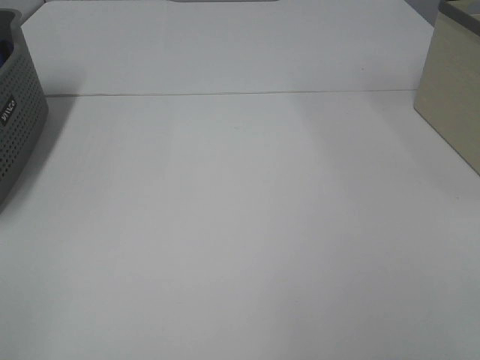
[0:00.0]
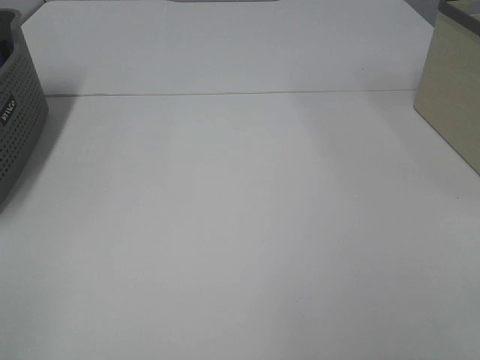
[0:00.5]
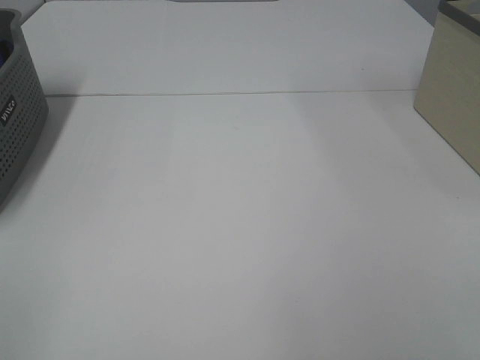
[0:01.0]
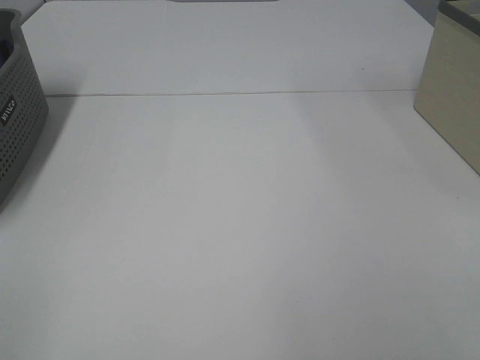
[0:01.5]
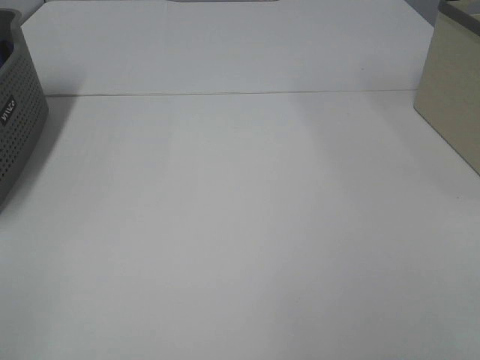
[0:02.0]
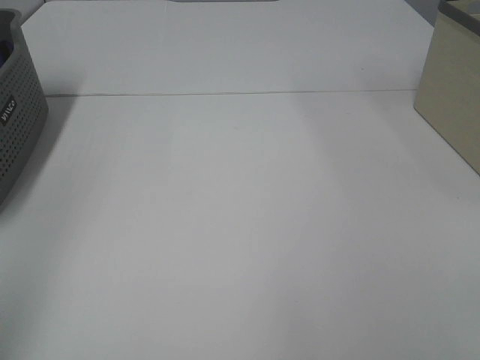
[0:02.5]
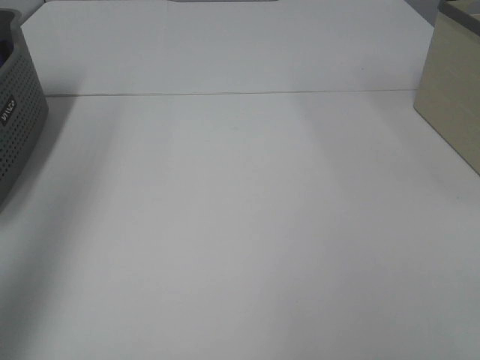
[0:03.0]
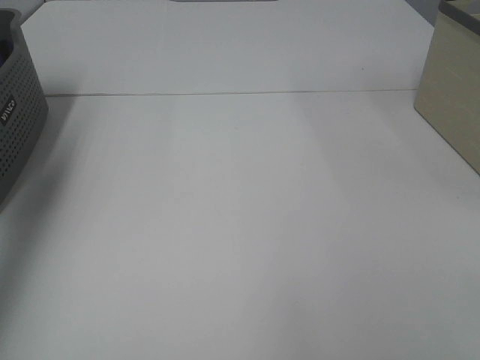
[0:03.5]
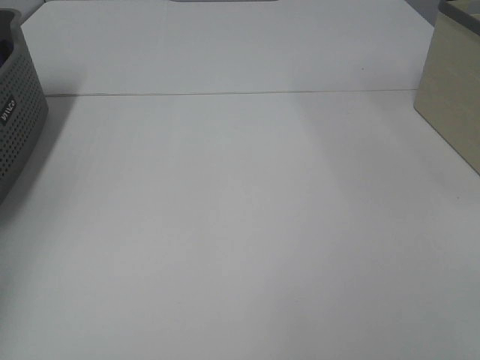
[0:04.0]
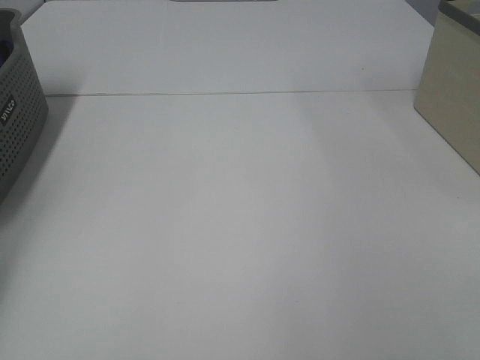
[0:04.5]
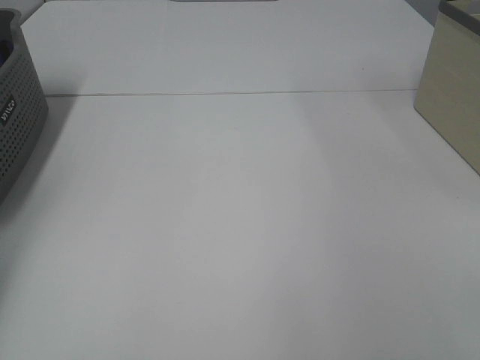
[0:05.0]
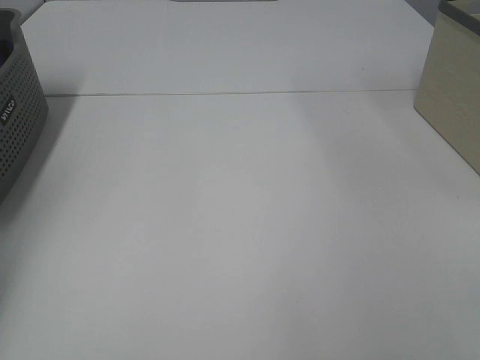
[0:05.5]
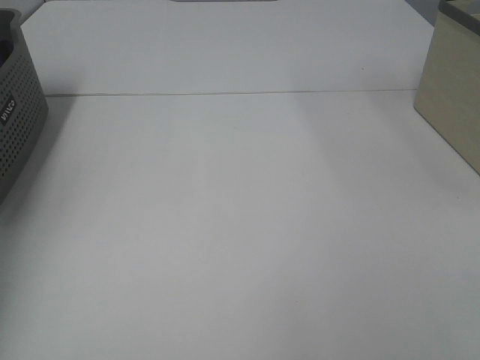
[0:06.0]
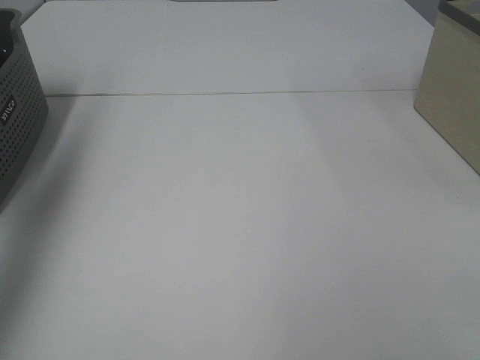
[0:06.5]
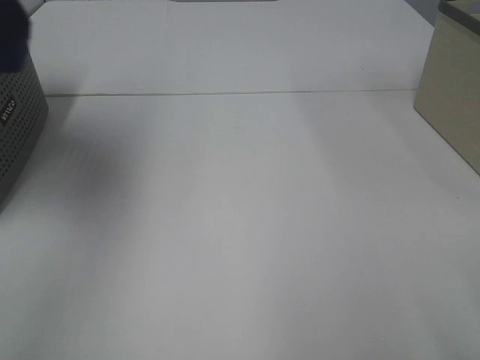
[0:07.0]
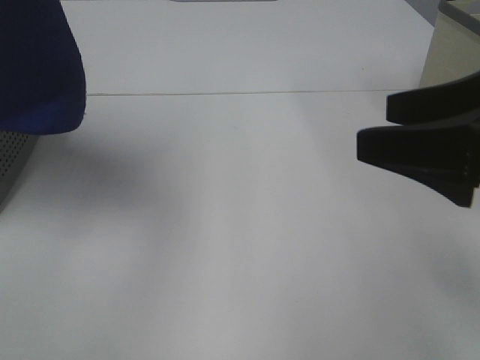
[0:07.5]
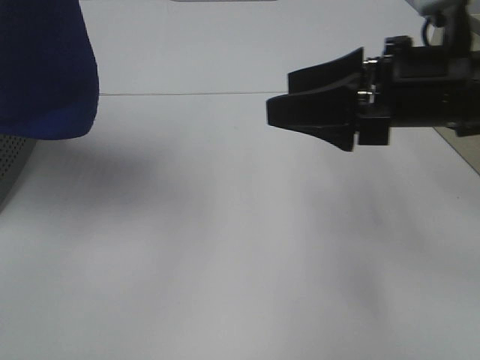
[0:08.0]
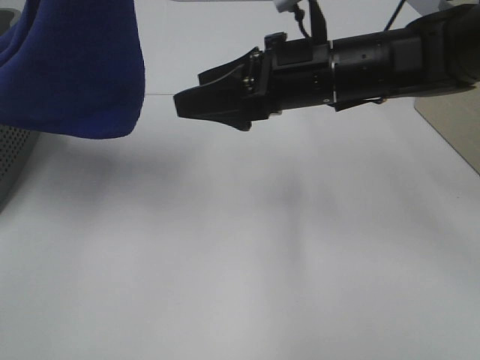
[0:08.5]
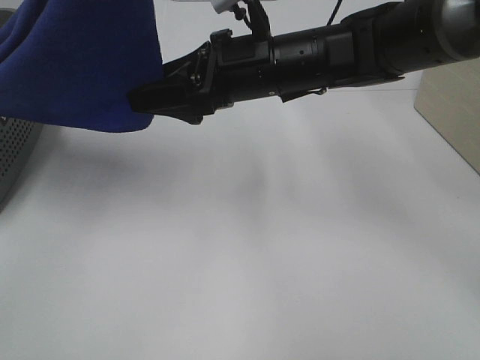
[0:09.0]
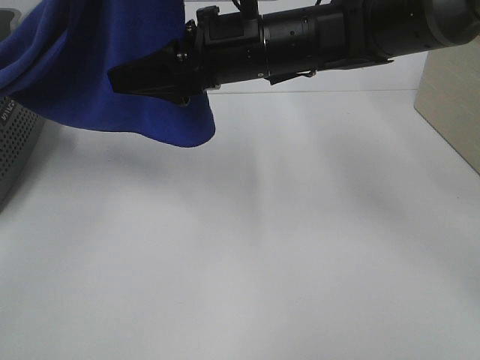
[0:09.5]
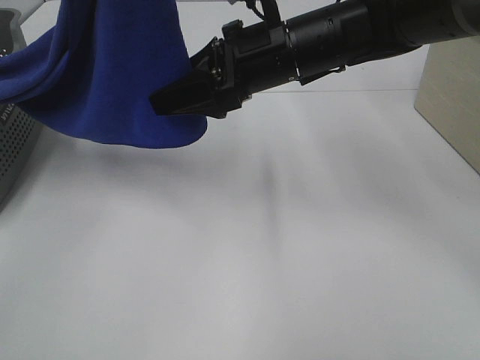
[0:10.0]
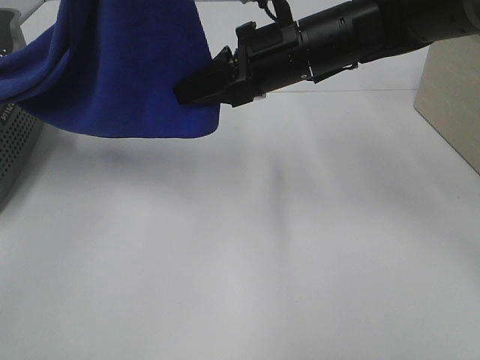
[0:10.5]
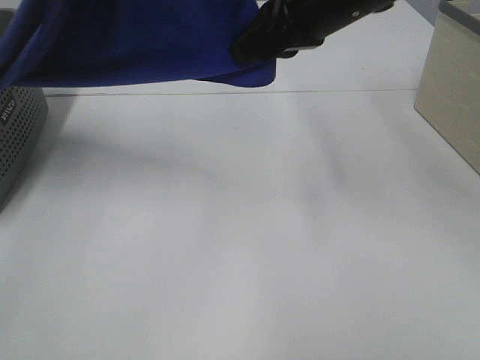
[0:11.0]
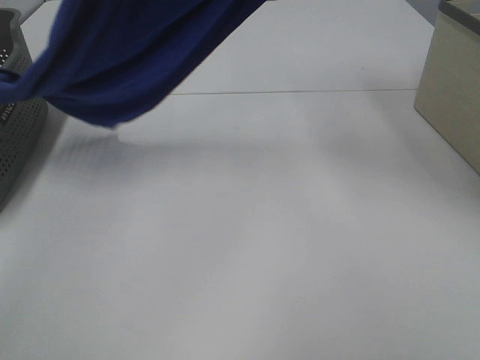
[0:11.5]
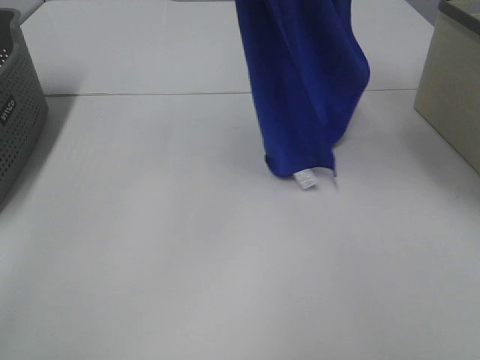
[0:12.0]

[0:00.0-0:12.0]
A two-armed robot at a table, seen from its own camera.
Task of the whole recording: Remove the towel and place it.
Step, 0:07.5 to 0:10.0: Right hand: grab a corner of the blue towel and straighten it.
0:00.0 to 0:02.0: Both grippers stay put.
0:02.0 to 0:04.0: The left gripper travels forward by about 40 cm.
0:06.0 to 0:08.0: The left gripper goes approximately 35 cm to the right, upward and backward. Meanwhile the right gripper is displaced forward and to the left by approximately 30 cm.
0:08.0 to 0:10.0: The right gripper shifts some 15 cm to the left and forward.
0:10.0 to 0:12.0: The left gripper heads forward, covering roughly 5 cm. The right gripper shifts approximately 25 cm upward and to the right, and closes its fingers.

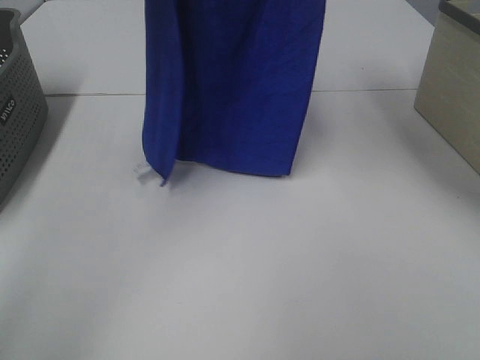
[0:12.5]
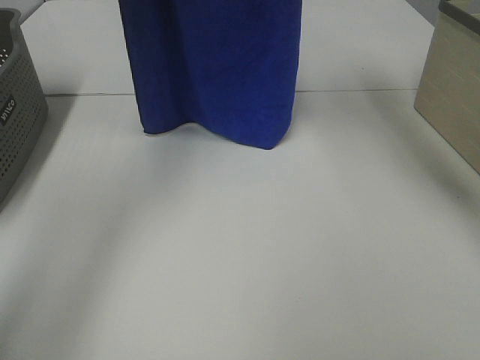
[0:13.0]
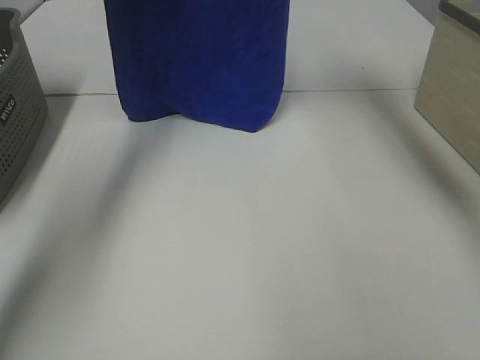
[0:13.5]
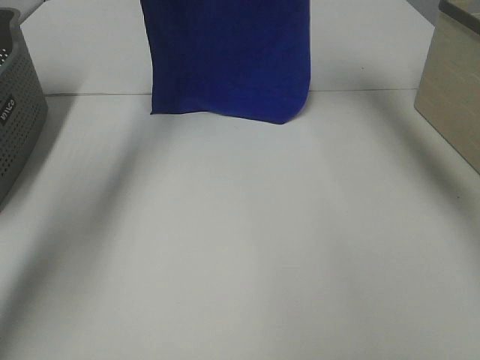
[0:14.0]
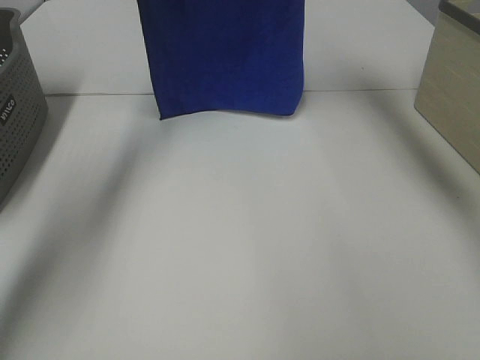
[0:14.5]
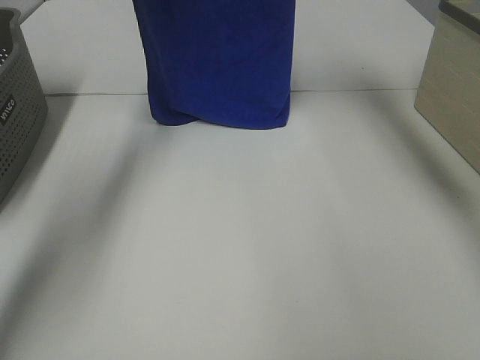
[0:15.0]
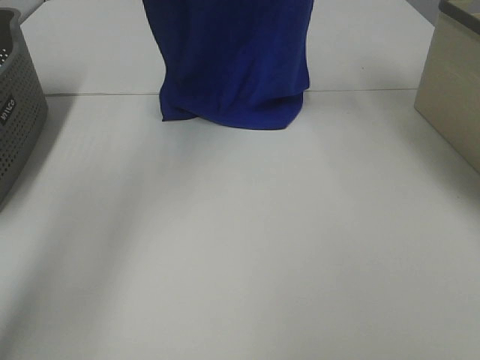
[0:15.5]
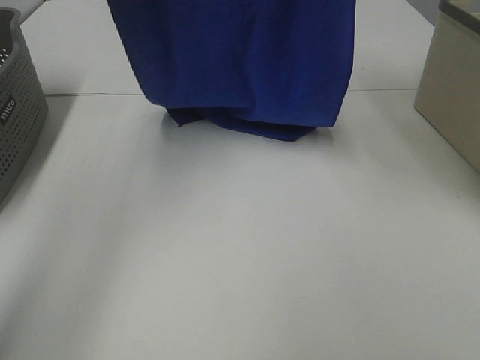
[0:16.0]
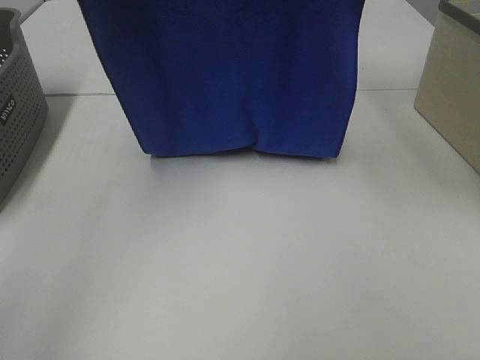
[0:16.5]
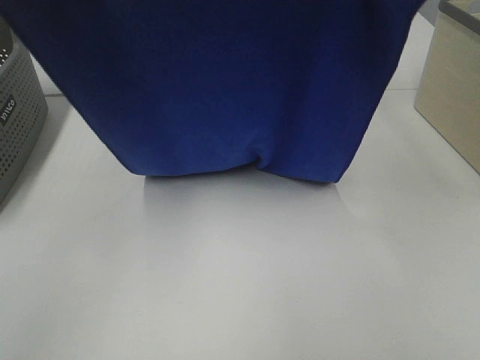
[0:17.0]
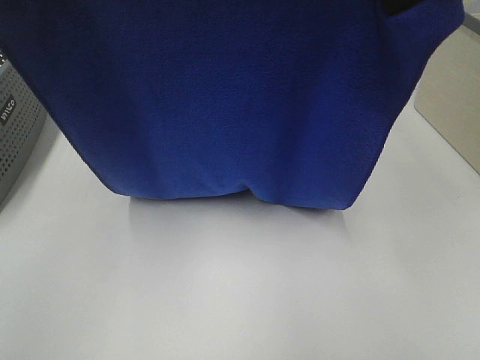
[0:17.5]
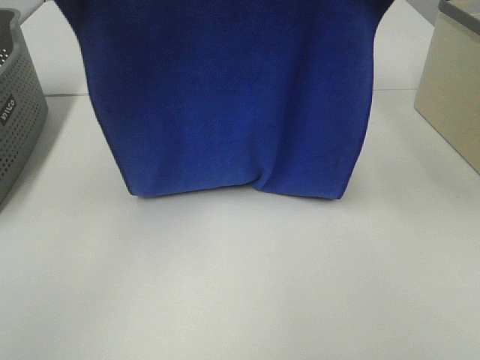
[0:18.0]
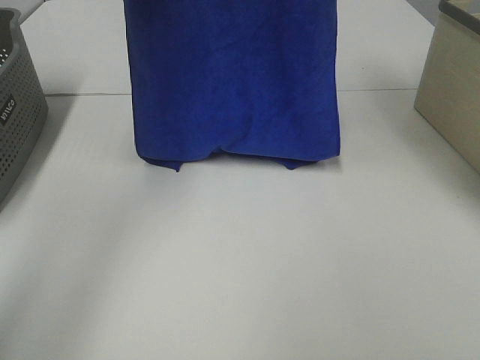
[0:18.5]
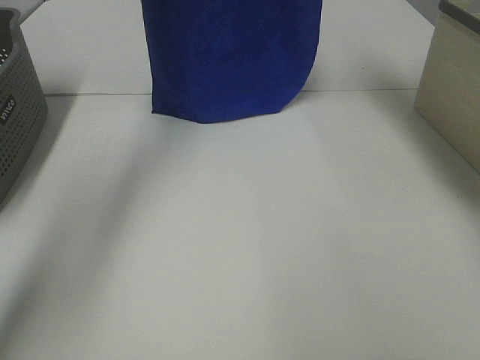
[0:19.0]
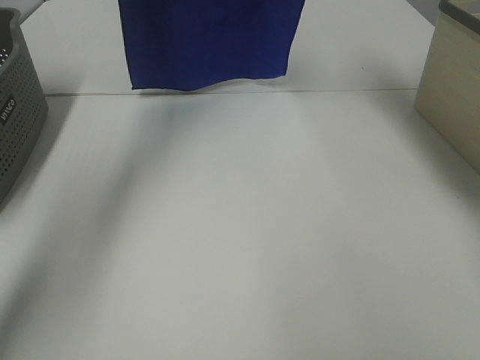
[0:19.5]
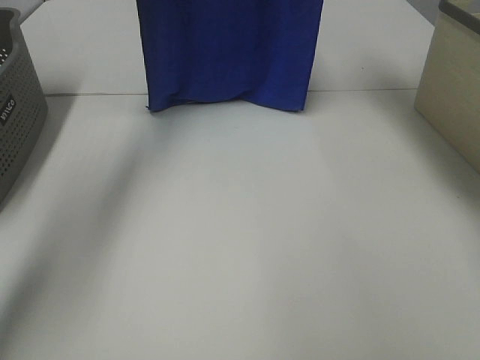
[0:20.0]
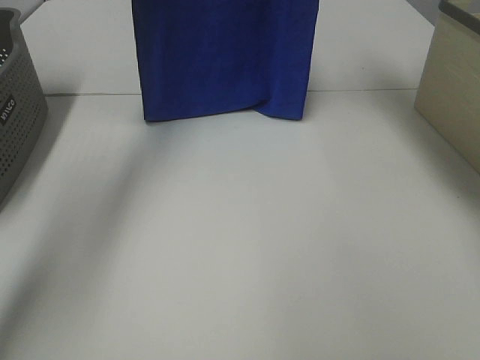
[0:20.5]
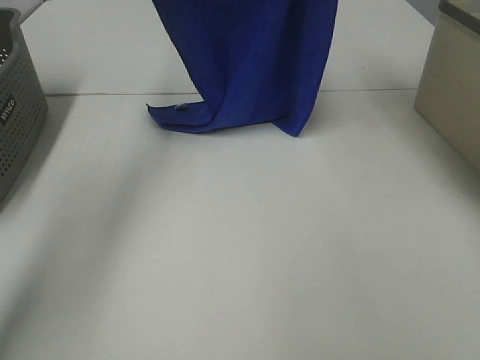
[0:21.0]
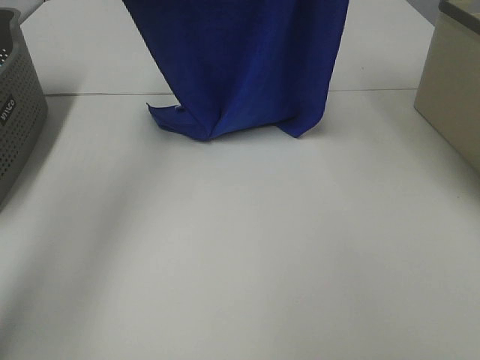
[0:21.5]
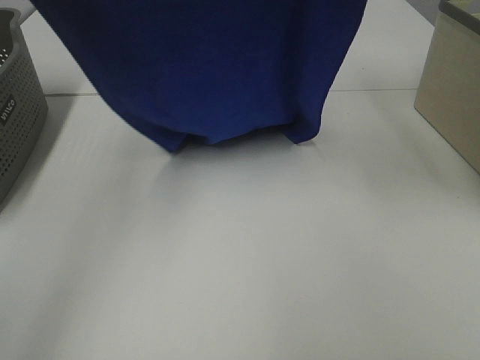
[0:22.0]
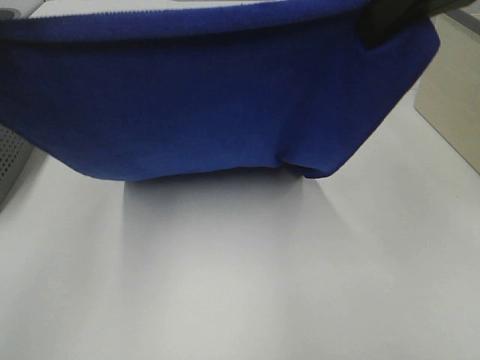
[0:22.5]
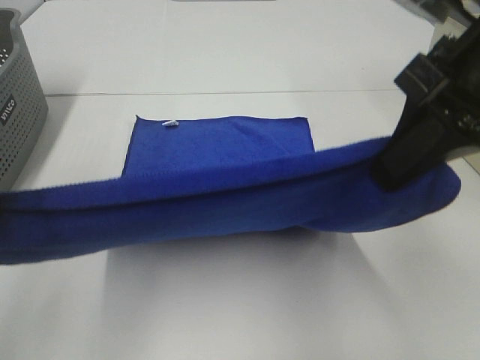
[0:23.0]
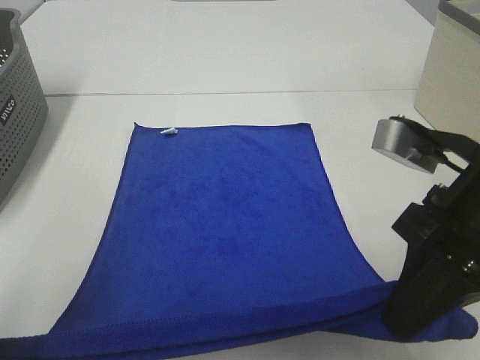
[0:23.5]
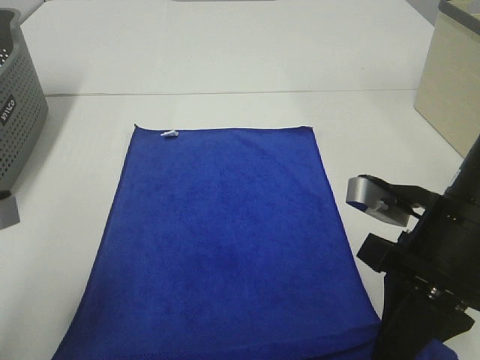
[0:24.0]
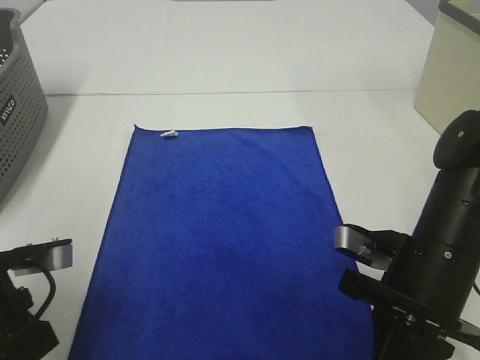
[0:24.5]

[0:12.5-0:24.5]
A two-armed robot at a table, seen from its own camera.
Task of the whole recording: Remove the towel and place it.
Step, 0:12.5 to 0:20.5: Left hand: spread the blue towel flat on the table.
Step, 0:12.5 to 0:20.5: Right hand: spread the blue towel flat on the table.
0:12.5 to 0:14.5: The left gripper is displaced forward, downward and to the left by some 15 cm. Meanwhile the right gripper is displaced forward by approximately 10 cm.
0:14.5 to 0:16.5: Both grippers travel together backward, approximately 20 cm.
0:16.5 to 0:18.5: The grippers both shift forward by roughly 10 cm.
0:18.5 to 0:20.5: The grippers both shift forward by approximately 5 cm.
0:20.5 to 0:22.5: The grippers both shift backward by roughly 25 cm.
0:22.5 to 0:24.5: The grippers both shift downward by about 25 cm.

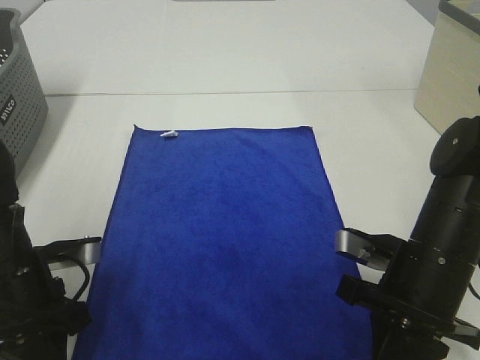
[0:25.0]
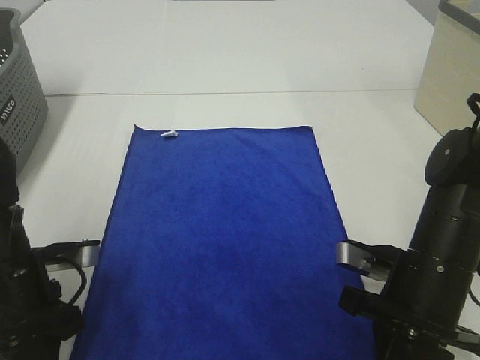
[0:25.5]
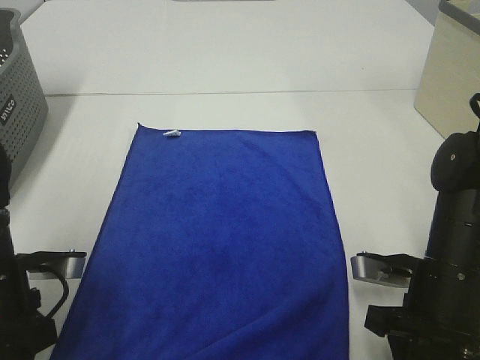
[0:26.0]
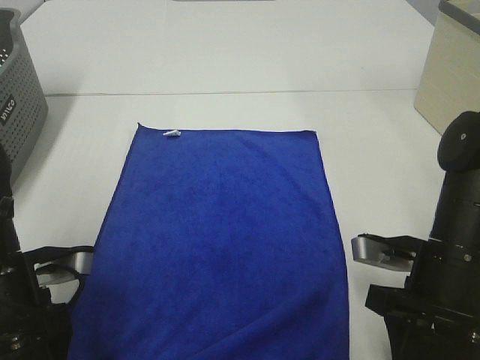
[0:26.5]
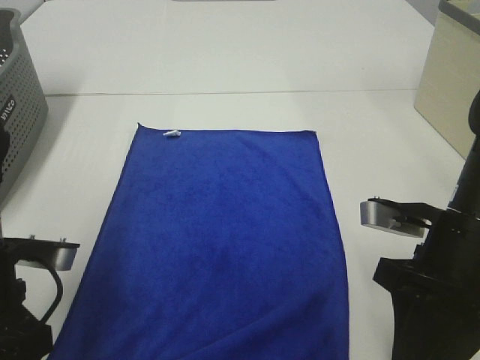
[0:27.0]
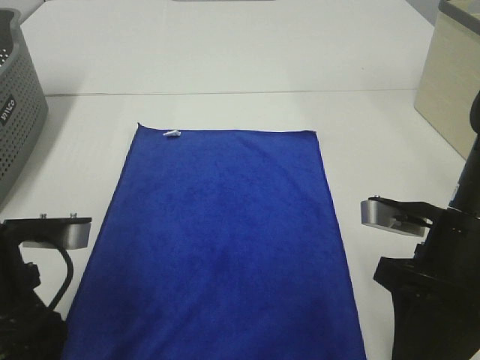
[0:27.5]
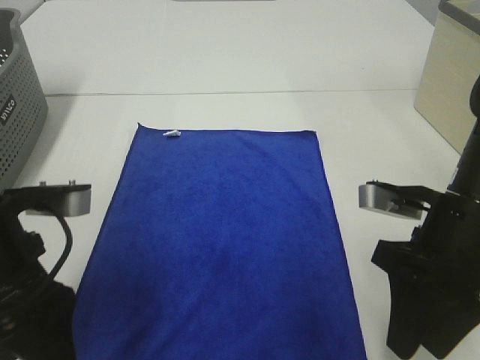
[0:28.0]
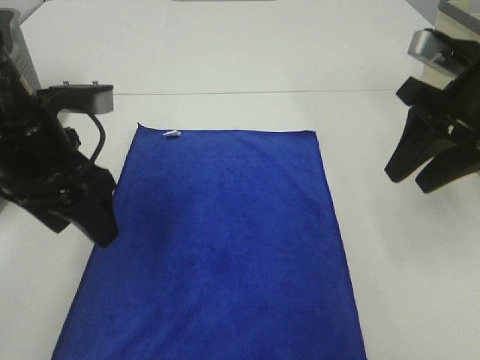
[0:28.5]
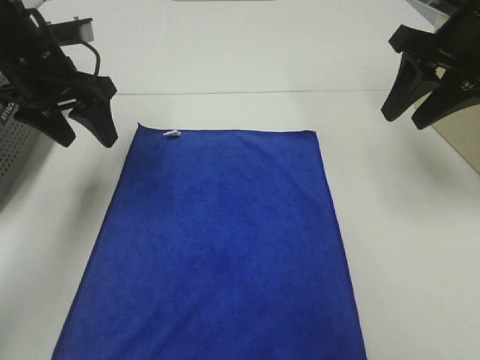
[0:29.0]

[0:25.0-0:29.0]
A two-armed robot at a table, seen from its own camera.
Task of the whole recording: Remove the towel and place it.
0:25.0 to 0:27.0: The left gripper shifts by some 5 cm, and opens its fingers. Meanwhile the right gripper shifts about 5 cm upward, and opens.
0:27.0 to 0:29.0: The right gripper goes roughly 20 cm forward and upward; the left gripper shifts approximately 20 cm forward.
